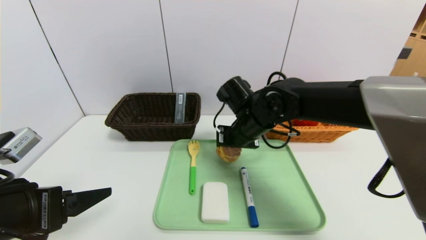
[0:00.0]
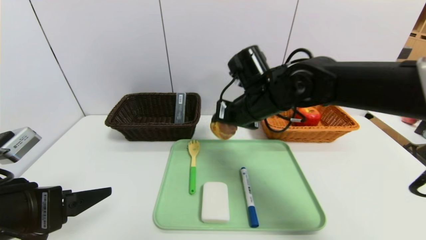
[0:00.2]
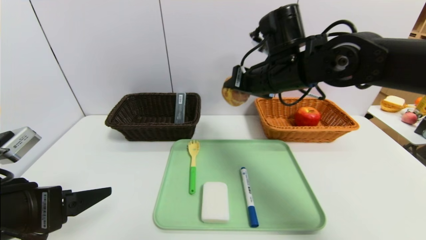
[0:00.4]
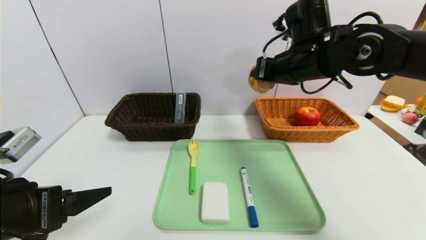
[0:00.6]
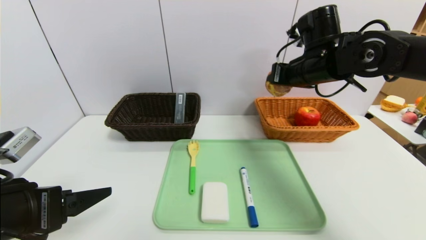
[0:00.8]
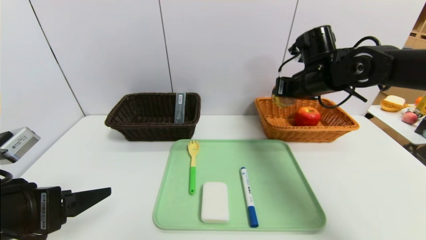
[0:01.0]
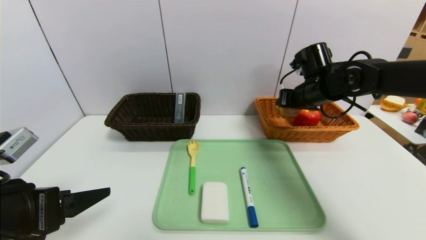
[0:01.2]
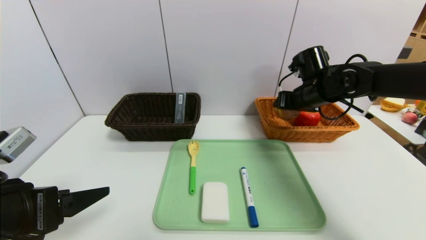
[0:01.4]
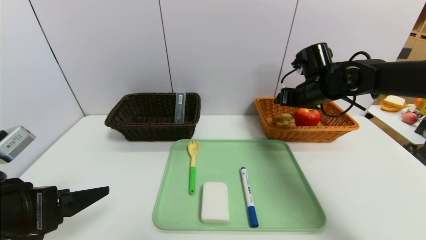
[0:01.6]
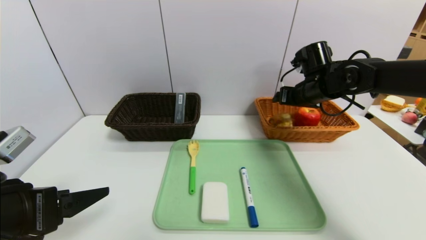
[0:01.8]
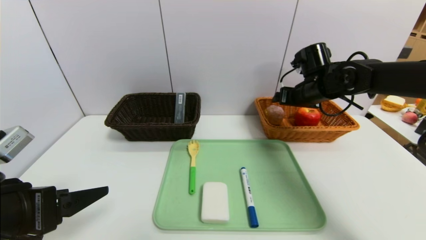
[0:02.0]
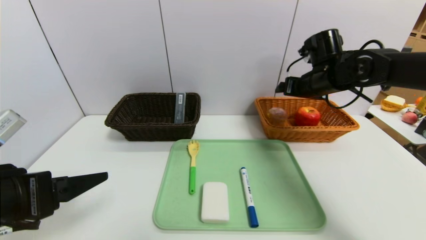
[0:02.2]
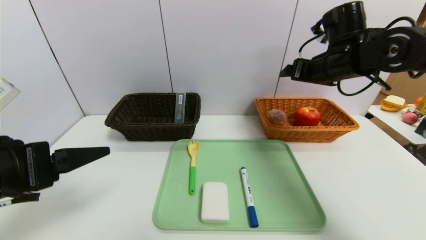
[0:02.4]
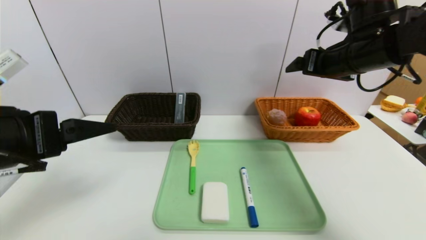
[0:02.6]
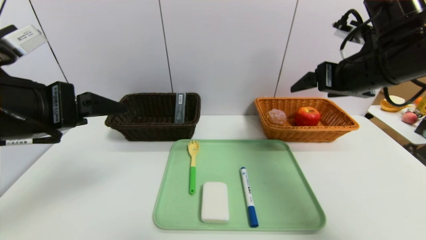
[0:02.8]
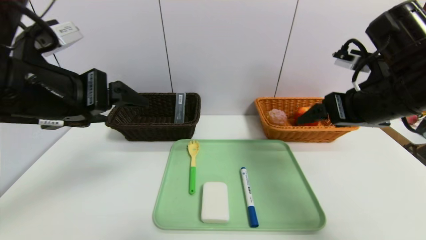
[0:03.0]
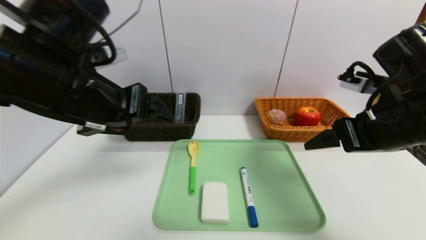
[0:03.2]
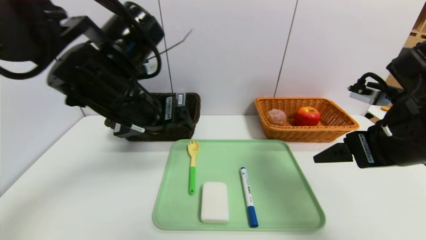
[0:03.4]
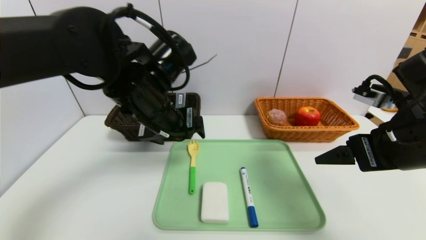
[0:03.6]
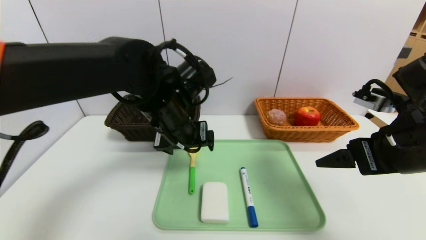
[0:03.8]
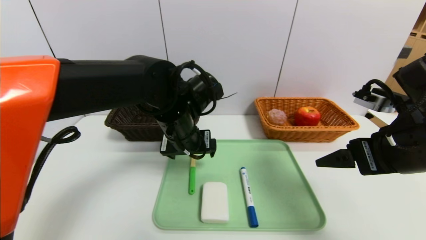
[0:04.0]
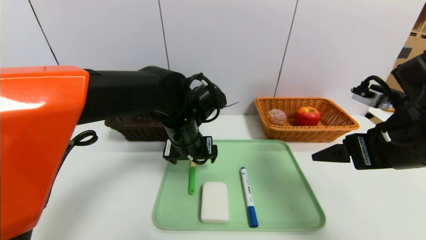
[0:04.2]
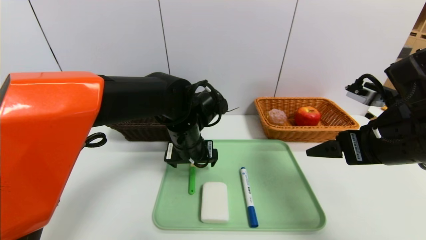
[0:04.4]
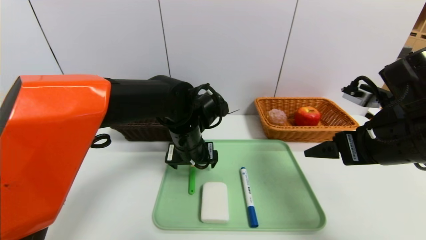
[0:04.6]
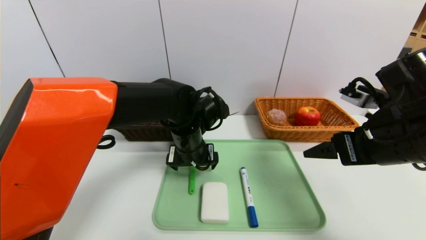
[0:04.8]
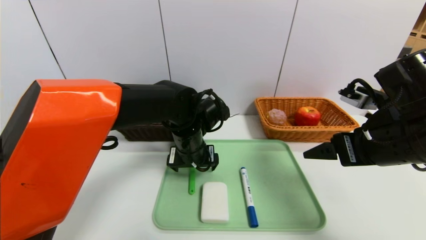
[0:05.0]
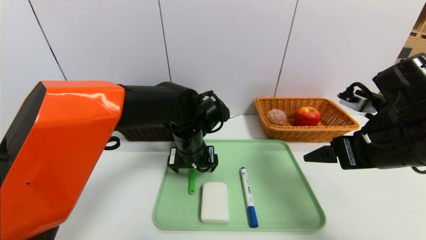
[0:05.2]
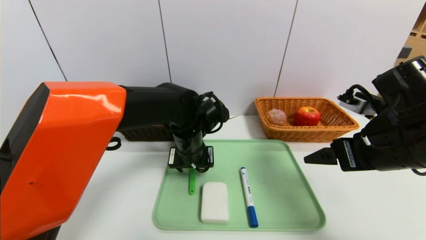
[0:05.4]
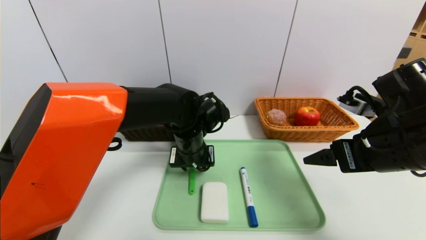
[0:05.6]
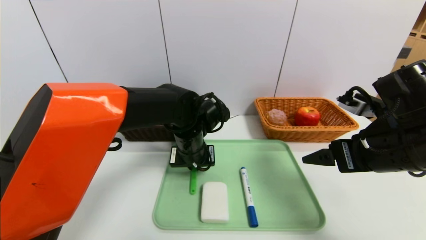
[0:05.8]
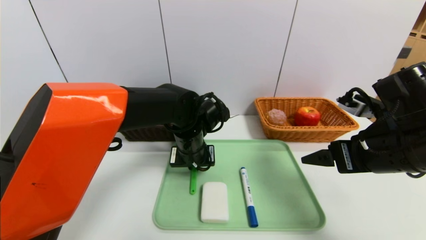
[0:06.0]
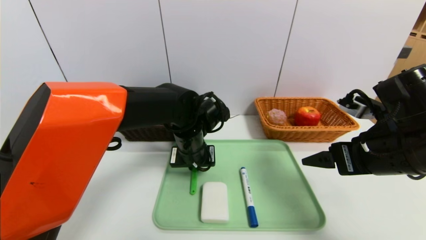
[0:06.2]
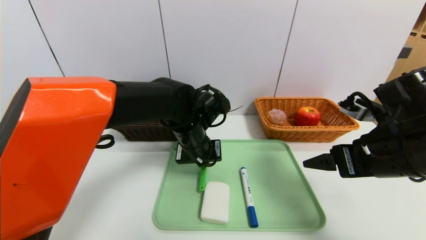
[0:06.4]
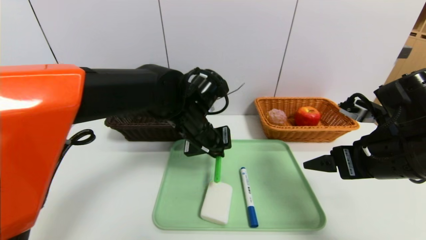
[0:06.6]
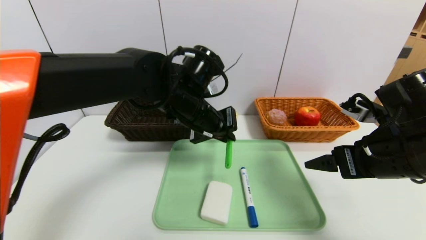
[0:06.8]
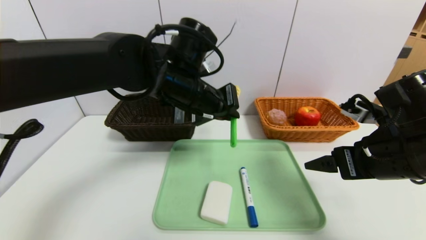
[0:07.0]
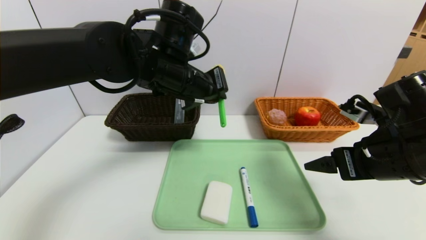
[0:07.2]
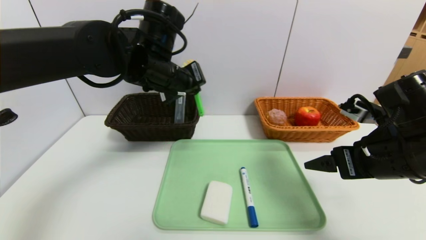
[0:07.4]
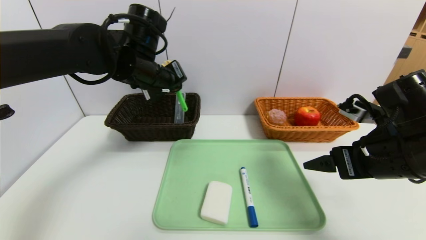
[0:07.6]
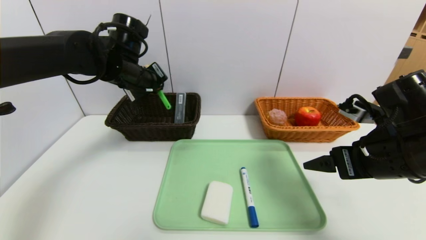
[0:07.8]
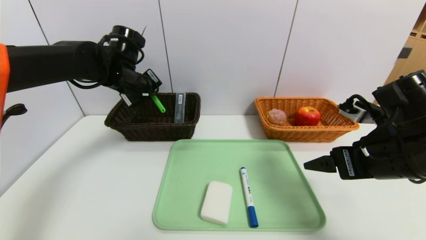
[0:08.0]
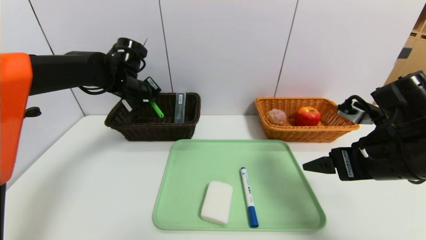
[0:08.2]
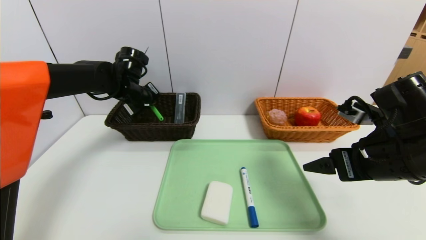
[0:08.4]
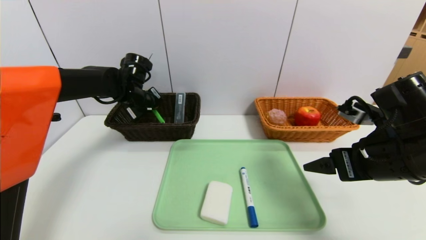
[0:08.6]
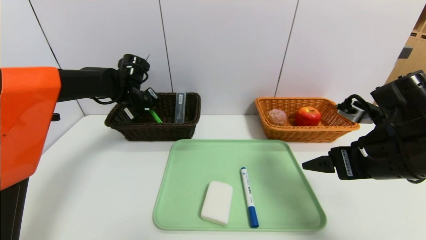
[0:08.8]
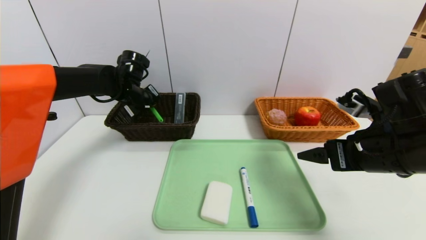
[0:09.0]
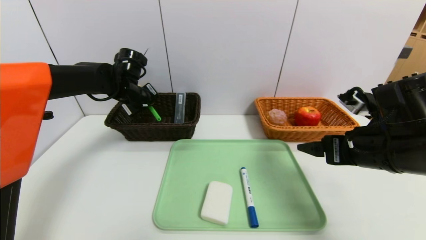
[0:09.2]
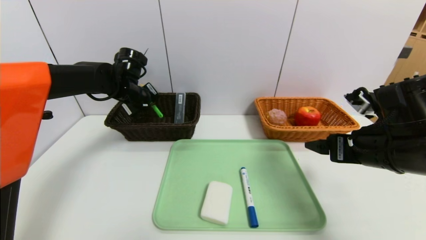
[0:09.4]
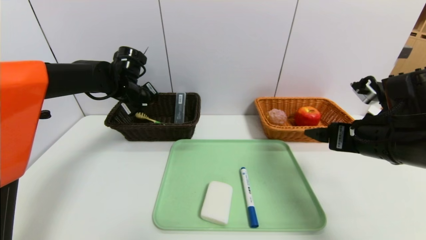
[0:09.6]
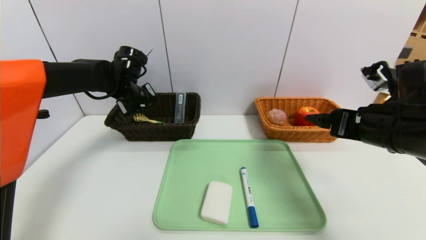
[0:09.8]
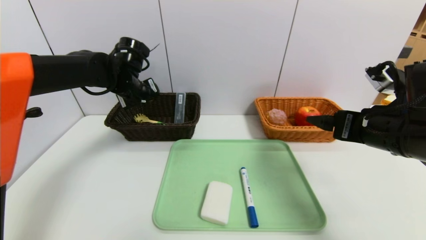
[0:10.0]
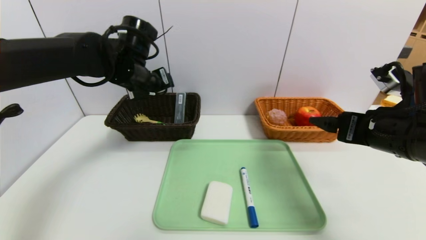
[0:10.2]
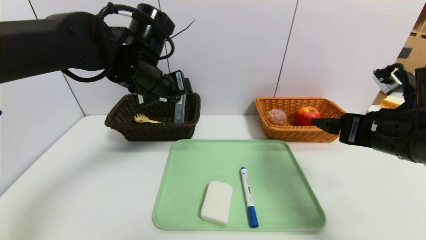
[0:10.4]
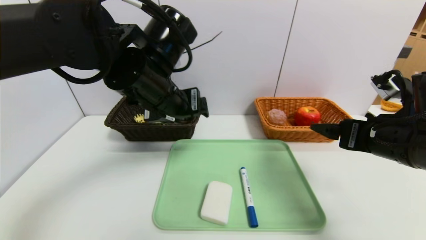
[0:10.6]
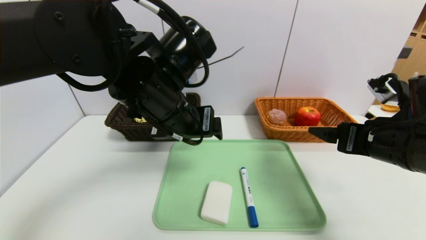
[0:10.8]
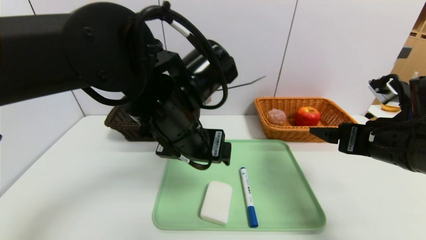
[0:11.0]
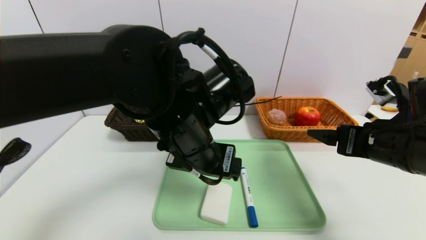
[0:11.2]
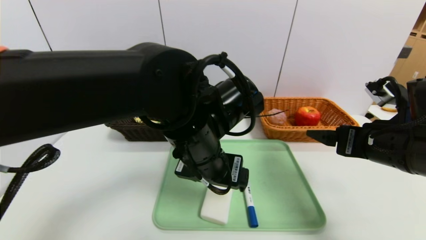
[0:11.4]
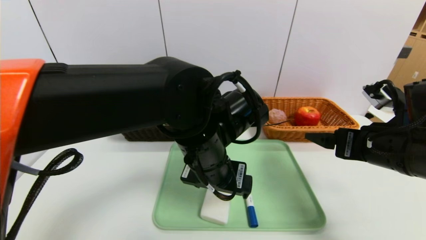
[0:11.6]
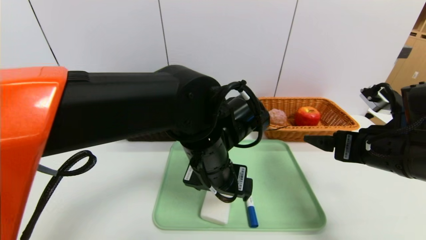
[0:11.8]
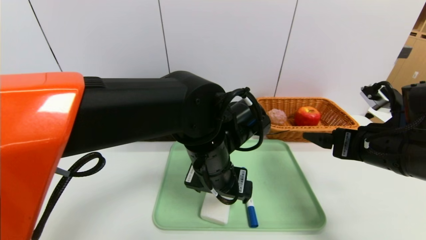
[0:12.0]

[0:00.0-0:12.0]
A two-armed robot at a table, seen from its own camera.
Task of the whole recording: place the food in the right basket with the right gripper, and place the non food items in the left basket with the left gripper.
Step, 0:00.0 to 0:03.2: Grasp the round bread and put it in the right basket.
Step, 0:03.4 to 0:09.8: Grasp the spoon and put it in the left basket.
0:00.0 to 0:01.6: The right gripper shifts some 20 cm to the right and forward, and opens its fingers.
0:01.6 to 0:03.0: The right gripper moves backward, some 15 cm; the left gripper heads upward, forward and to the right, covering roughly 15 cm.
0:03.0 to 0:04.4: The left gripper goes some 25 cm downward, to the right and forward. Meanwhile the right gripper changes place by approximately 5 cm.
0:04.4 to 0:06.0: The left gripper closes up.
0:06.0 to 0:07.6: The left gripper travels upward and to the left by approximately 15 cm.
0:07.6 to 0:09.0: The left gripper moves forward, downward and to the left, about 15 cm.
0:09.0 to 0:10.4: The left gripper goes some 20 cm backward, to the right and upward, and opens up.
0:10.4 to 0:12.0: The left gripper travels to the right, downward and backward by approximately 15 cm.

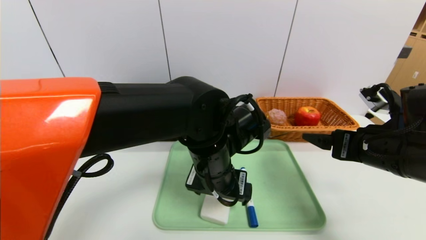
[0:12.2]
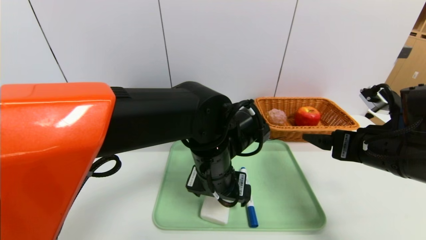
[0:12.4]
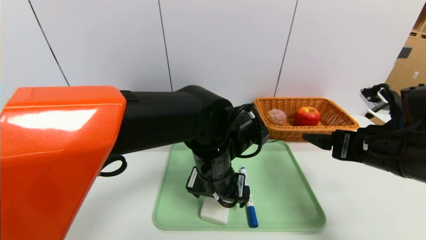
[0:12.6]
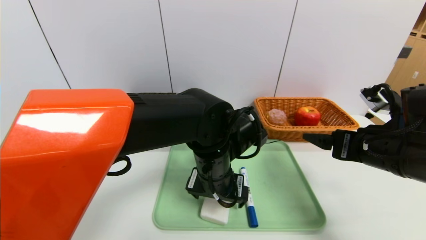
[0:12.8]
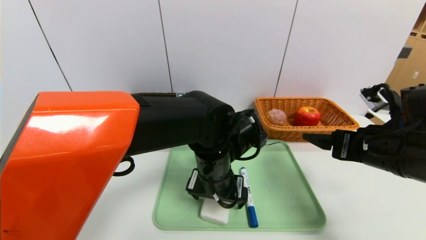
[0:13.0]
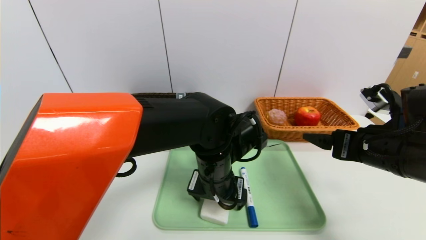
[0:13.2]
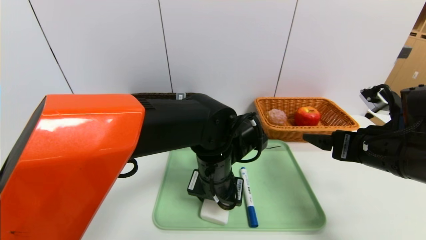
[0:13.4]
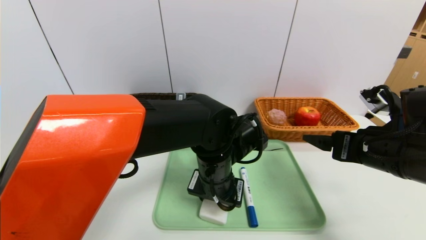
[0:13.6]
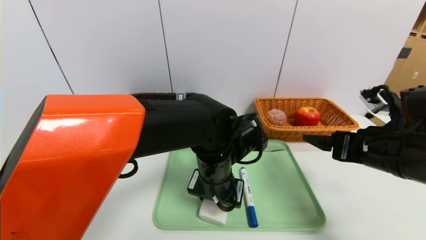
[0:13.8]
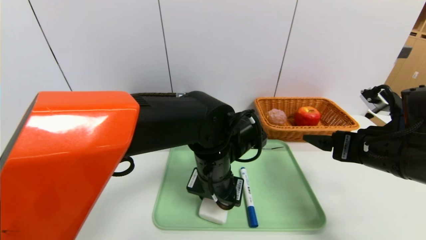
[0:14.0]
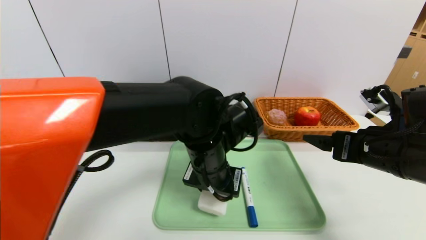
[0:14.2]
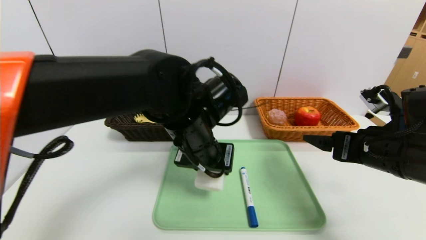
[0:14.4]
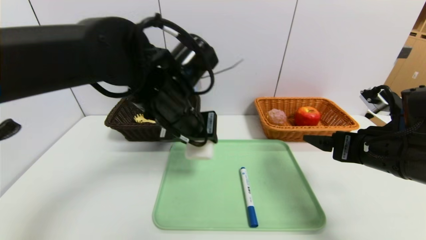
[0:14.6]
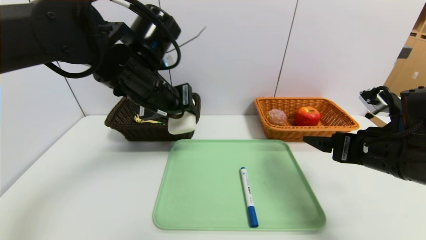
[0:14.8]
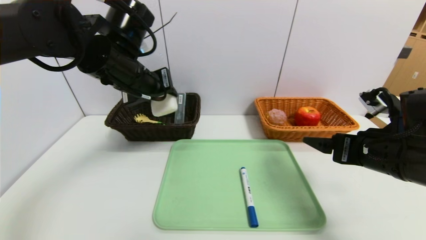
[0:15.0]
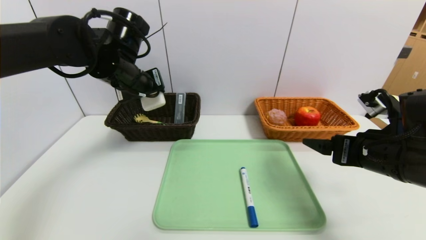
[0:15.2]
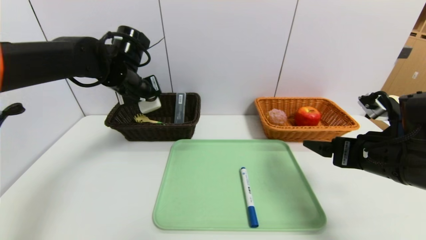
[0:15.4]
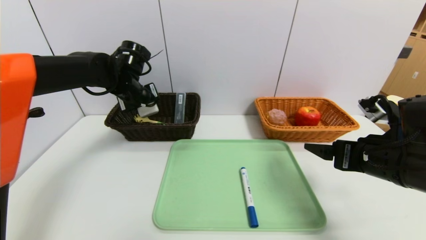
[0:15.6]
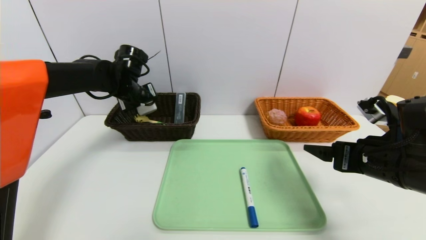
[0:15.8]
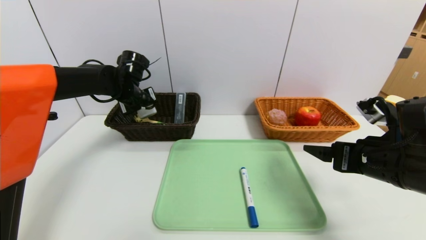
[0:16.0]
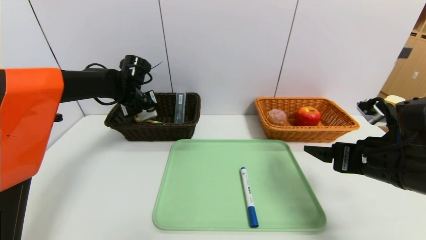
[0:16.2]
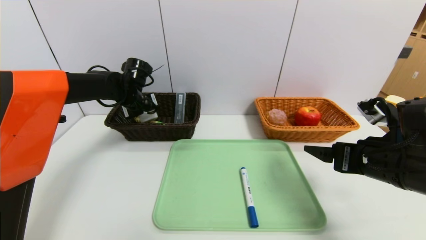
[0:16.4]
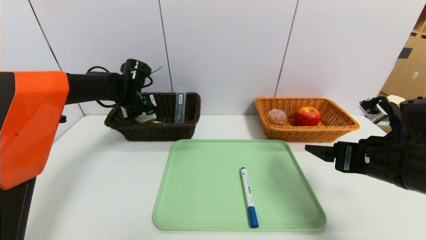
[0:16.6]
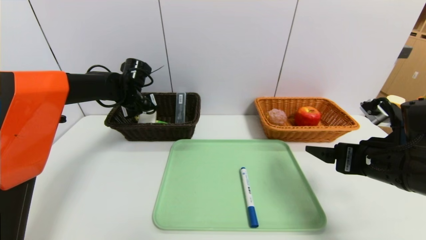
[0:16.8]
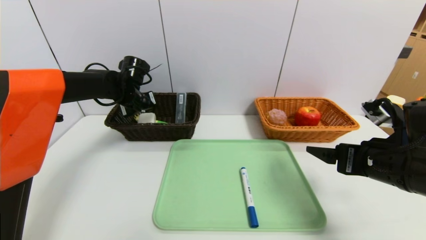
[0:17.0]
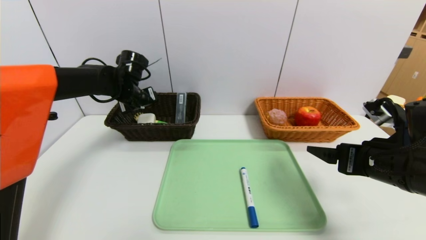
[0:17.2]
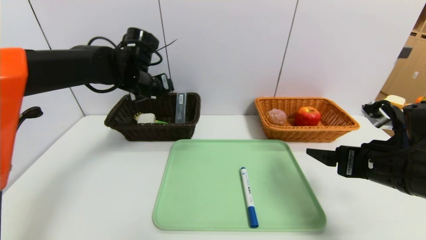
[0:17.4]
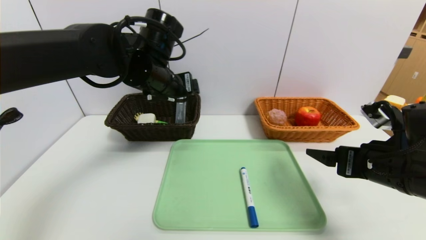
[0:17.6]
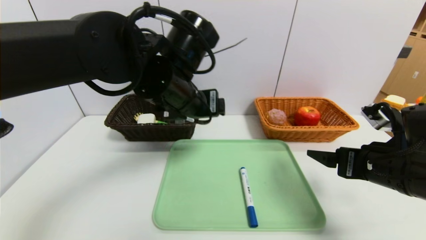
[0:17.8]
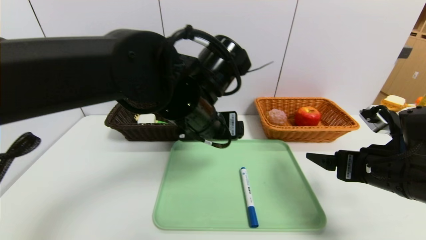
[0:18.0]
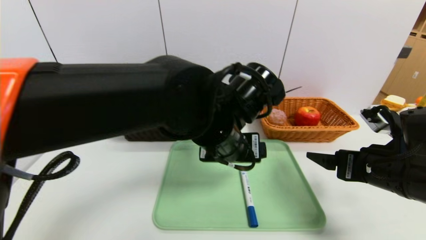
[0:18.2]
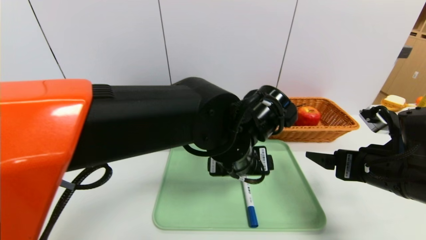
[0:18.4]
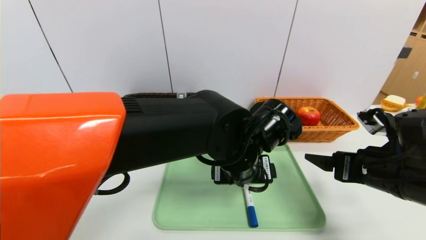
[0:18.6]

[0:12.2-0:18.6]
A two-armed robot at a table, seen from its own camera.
Task of the whole recording: place the food in the right basket with the right gripper, and place the non food items in the left basket with the left gripper.
Step, 0:12.2 to 0:17.2: Grasp the white eraser and put it in the left basket.
0:12.2 to 0:13.8: The left gripper closes up.
0:13.8 to 0:15.4: The left gripper goes roughly 25 cm to the left, forward and upward.
0:15.4 to 0:17.0: The left gripper goes roughly 10 cm downward and forward.
0:17.0 to 0:18.6: The left gripper travels to the right and backward by about 35 cm.
